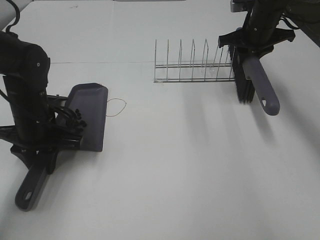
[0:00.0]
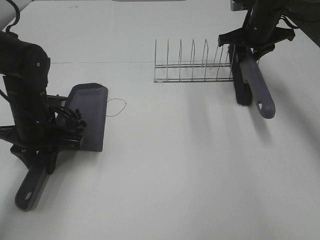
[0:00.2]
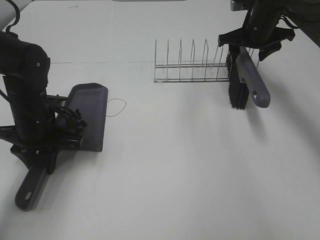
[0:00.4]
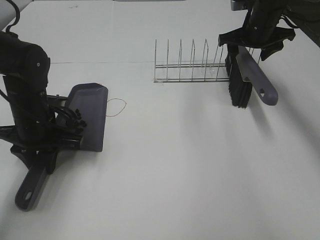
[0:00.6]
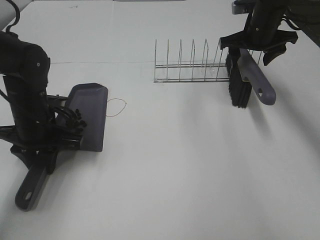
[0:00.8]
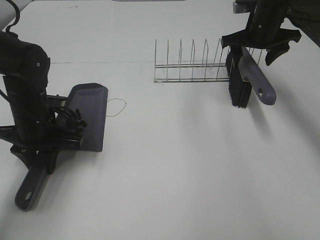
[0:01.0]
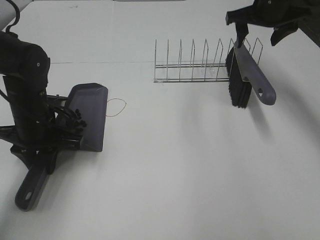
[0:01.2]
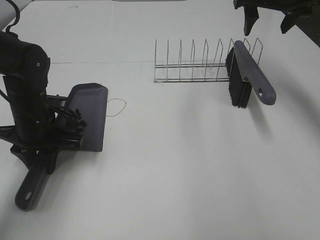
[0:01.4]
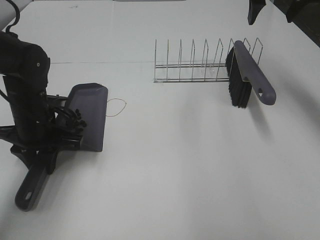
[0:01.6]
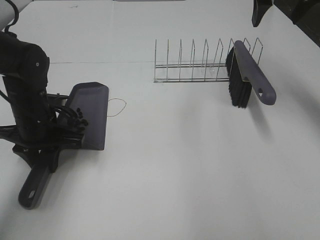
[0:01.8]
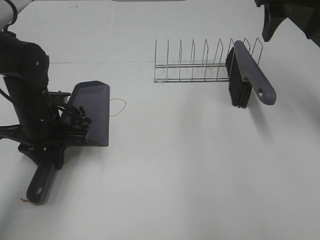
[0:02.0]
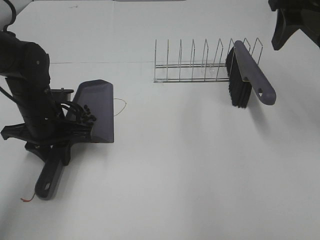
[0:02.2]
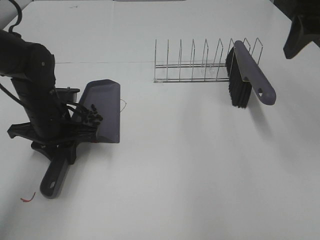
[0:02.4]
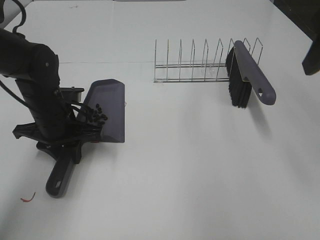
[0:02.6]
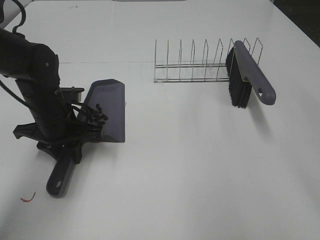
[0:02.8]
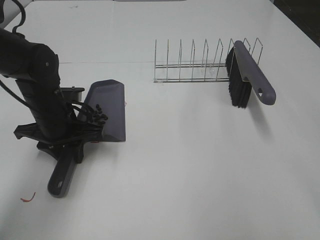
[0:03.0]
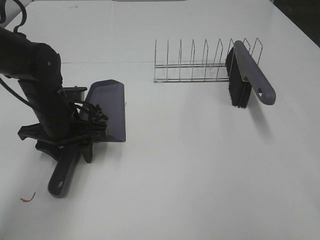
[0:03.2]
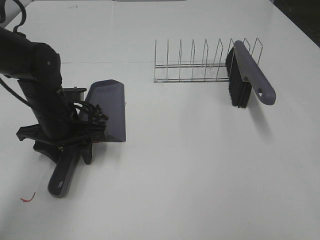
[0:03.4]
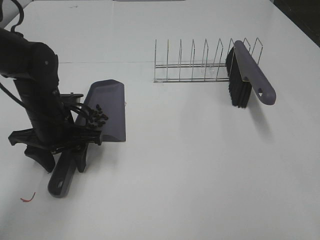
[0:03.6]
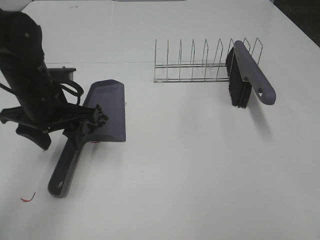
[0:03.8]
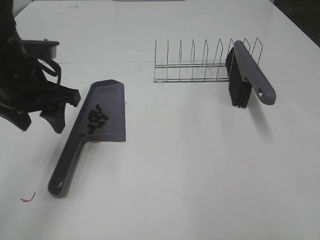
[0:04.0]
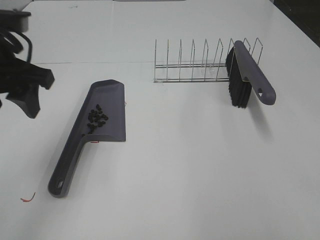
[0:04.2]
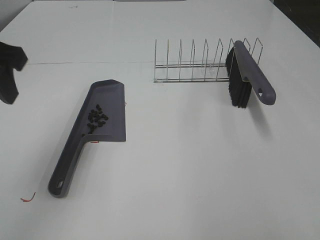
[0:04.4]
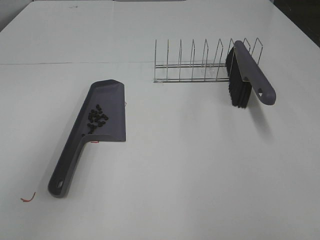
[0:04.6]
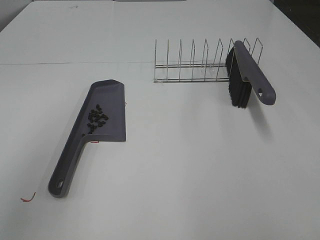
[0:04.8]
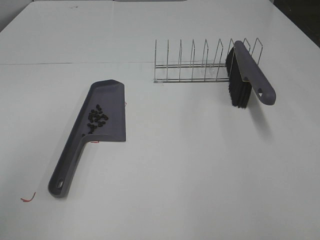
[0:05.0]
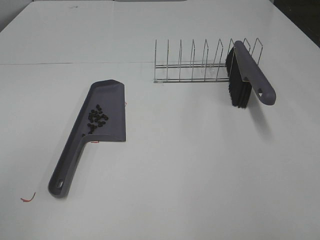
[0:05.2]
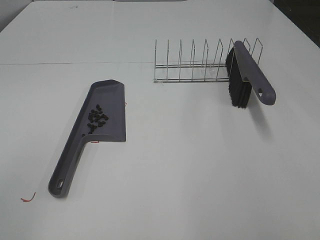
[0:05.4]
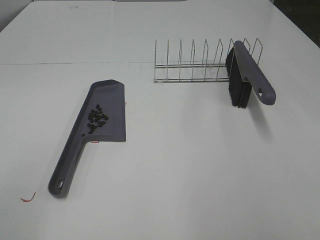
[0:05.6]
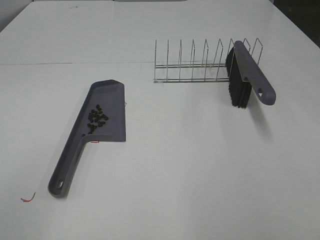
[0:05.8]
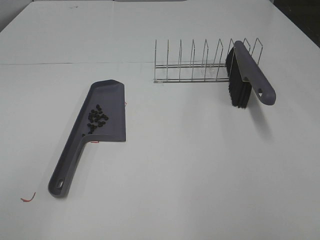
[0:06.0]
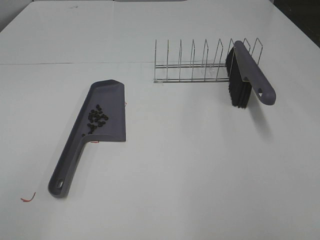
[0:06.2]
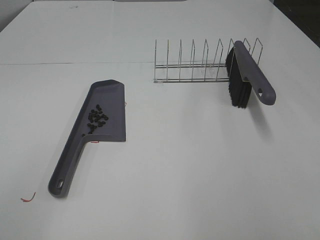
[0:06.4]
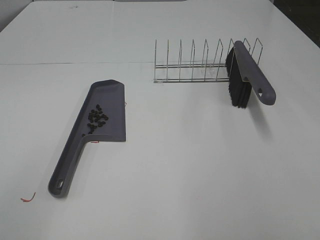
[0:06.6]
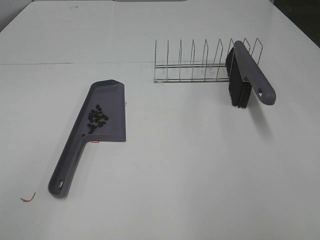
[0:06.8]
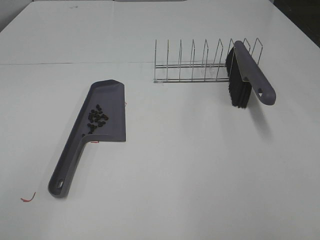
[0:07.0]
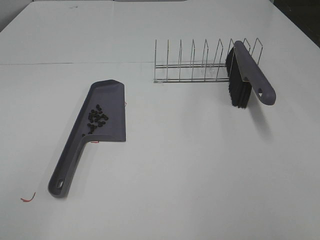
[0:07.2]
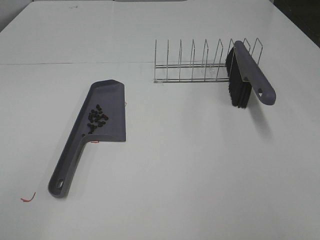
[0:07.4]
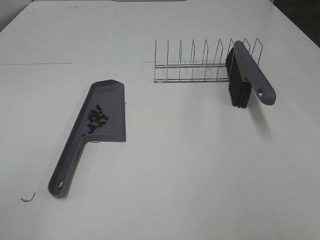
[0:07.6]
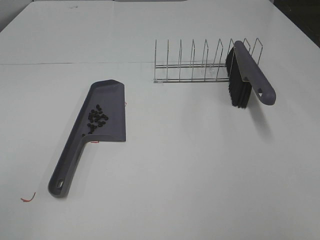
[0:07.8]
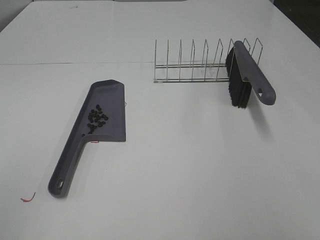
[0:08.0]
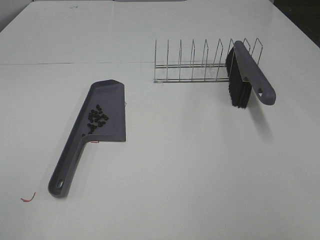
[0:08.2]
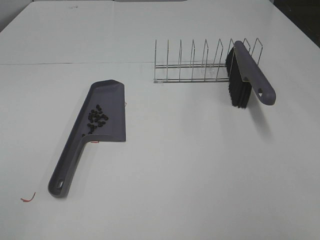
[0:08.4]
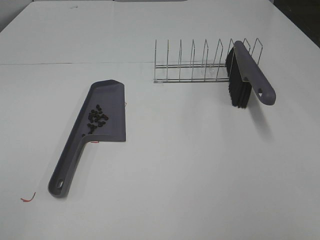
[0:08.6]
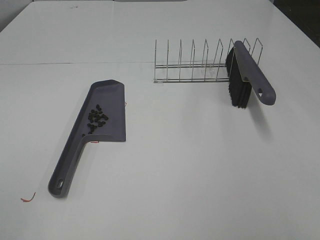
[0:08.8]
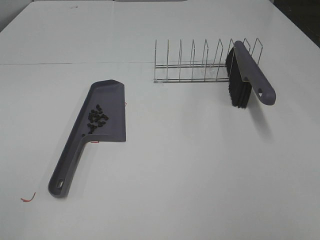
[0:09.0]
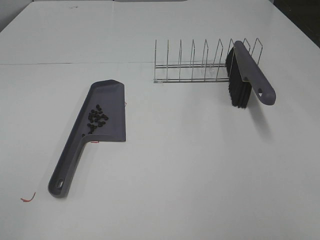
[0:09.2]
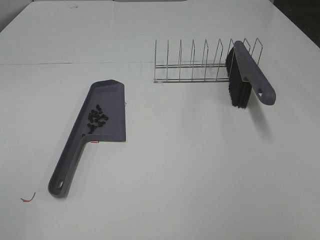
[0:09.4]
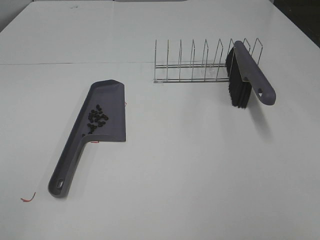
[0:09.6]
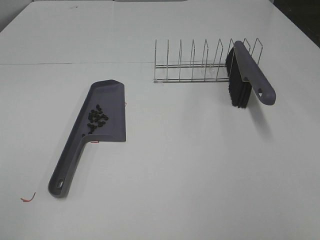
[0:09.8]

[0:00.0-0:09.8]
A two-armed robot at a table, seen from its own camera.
Task of the whole recording: Sweep Coffee Bean.
0:00.0 to 0:01.4: The right gripper travels upward by roughly 10 cm, and opens up.
0:01.4 to 0:02.8: The right gripper shifts roughly 30 cm backward.
0:02.8 to 0:04.2: The left gripper shifts some 15 cm upward, and opens.
0:04.2 to 0:05.6: The left gripper moves backward, roughly 25 cm.
0:05.6 to 0:07.0: Neither gripper changes place.
